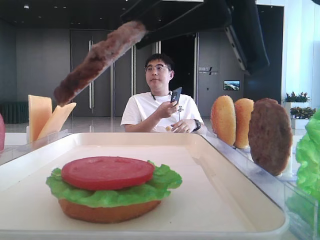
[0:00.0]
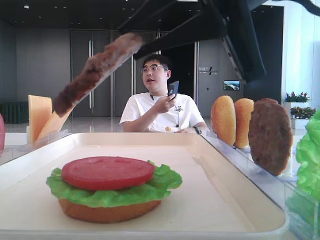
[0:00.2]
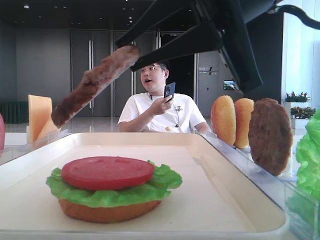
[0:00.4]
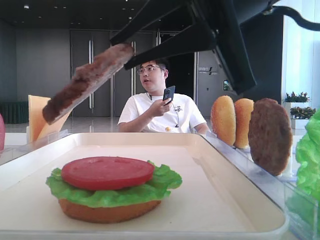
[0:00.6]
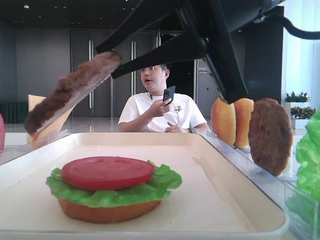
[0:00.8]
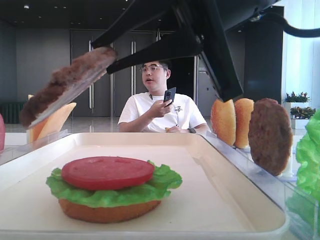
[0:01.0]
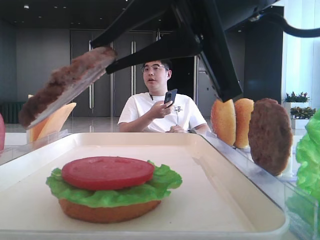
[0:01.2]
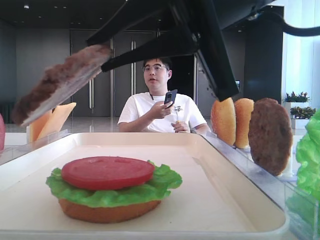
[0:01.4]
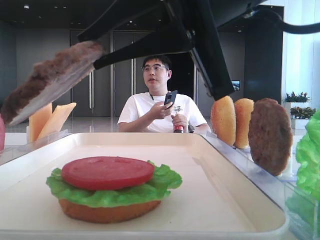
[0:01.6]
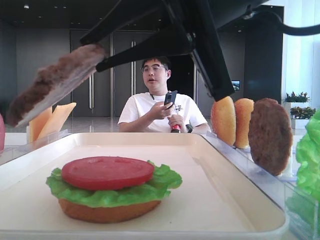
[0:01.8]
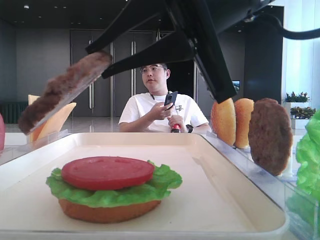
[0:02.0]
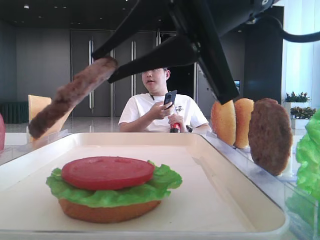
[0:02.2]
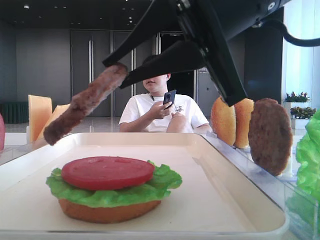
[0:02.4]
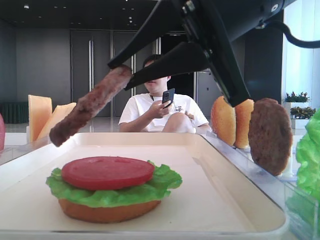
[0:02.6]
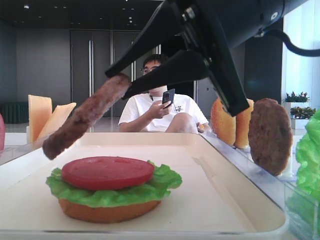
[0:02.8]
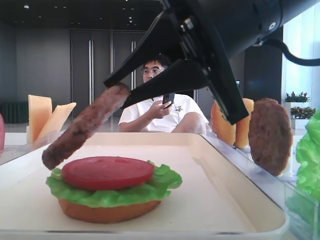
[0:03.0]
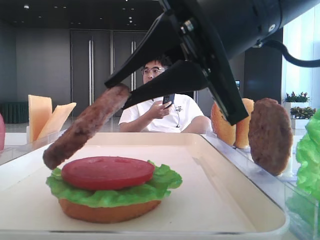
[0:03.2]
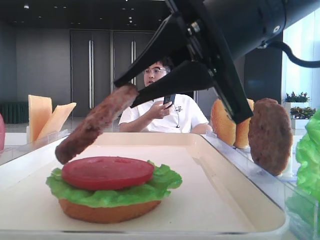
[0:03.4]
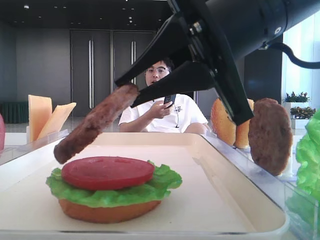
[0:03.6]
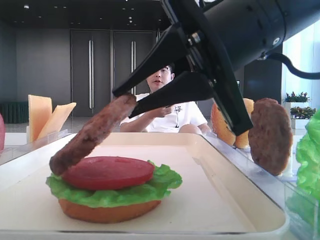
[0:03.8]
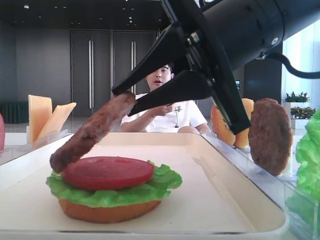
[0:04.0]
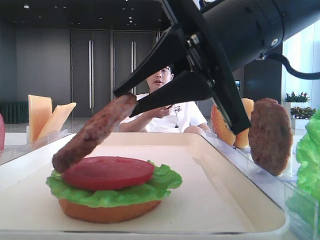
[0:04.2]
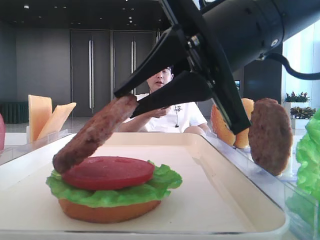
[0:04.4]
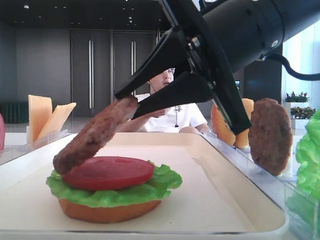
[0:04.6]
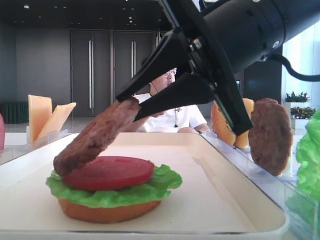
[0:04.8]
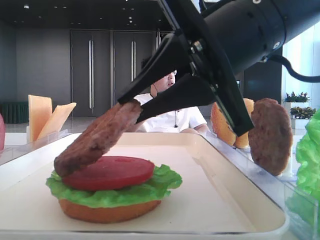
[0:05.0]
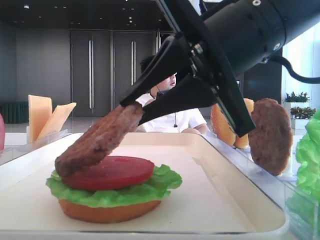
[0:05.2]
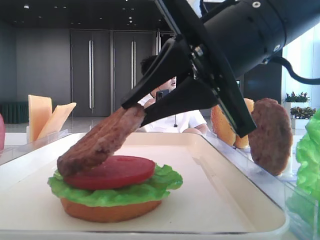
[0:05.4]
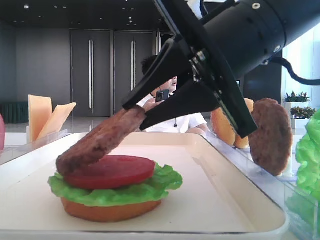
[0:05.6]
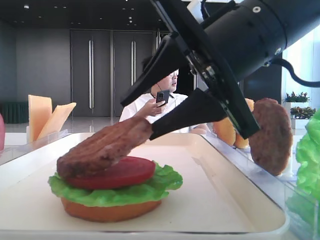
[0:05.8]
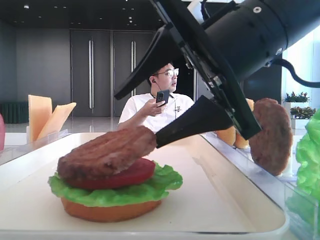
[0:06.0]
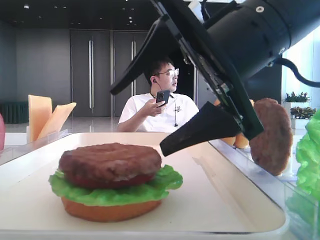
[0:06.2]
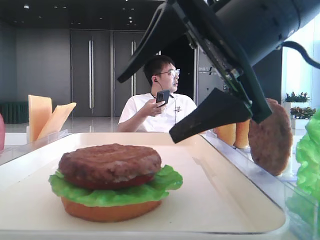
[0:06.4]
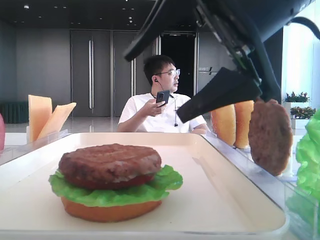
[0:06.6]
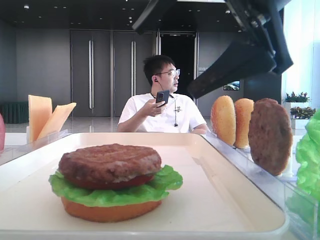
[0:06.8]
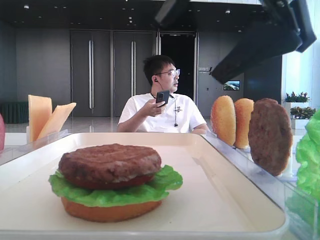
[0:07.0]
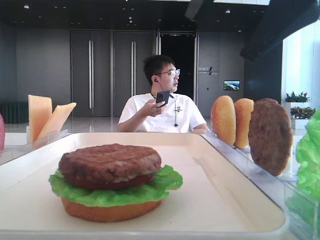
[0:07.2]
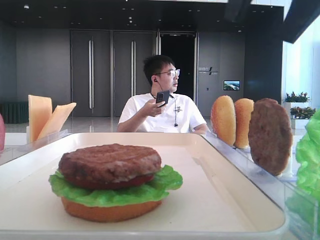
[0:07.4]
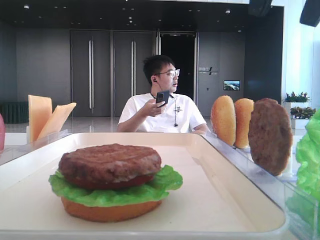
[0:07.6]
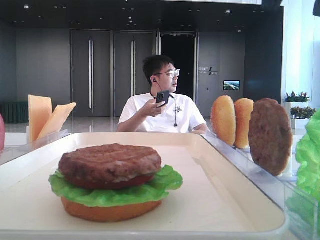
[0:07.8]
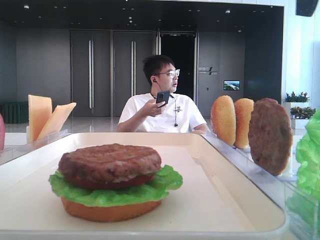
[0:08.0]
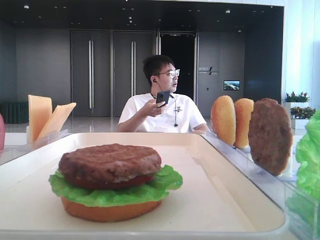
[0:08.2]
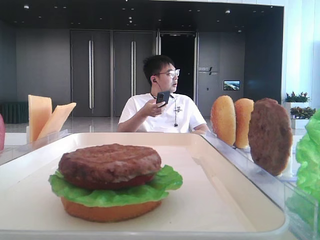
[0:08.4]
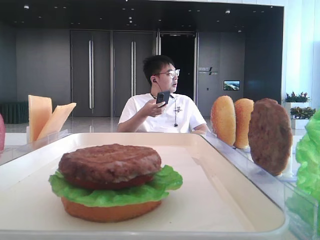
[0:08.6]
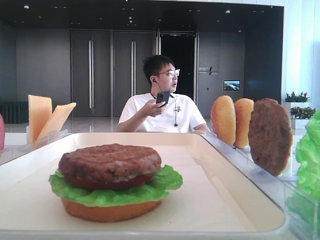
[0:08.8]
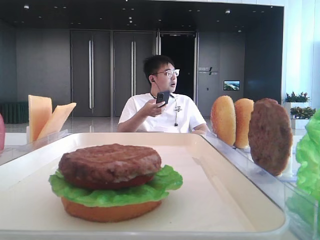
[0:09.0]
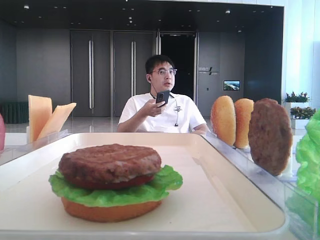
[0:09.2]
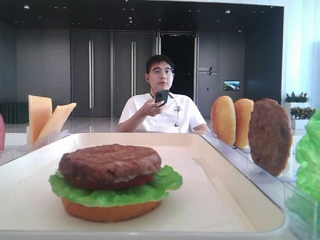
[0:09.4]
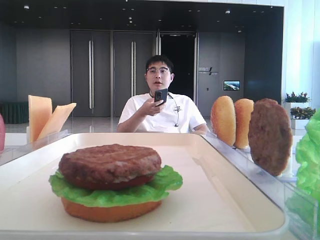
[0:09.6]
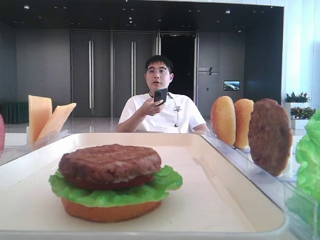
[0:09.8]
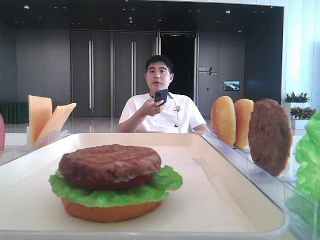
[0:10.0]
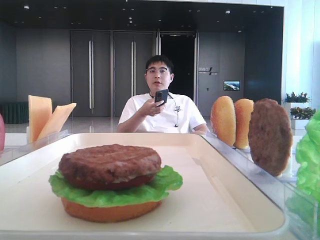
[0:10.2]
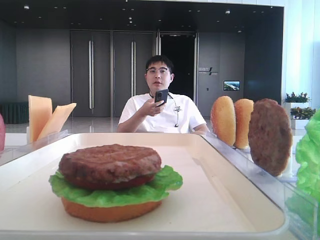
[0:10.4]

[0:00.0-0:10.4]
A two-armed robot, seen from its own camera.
Step, 0:00.0 to 0:06.0: Place the patty on the tomato slice with the right hand.
0:00.0 to 0:04.4: The grippers make only small movements.
0:04.4 to 0:06.0: The right gripper opens its fingers.
0:06.0 to 0:07.4: The right gripper shifts approximately 15 cm upward and to the right.
0:07.4 to 0:09.0: The right gripper moves to the right and upward, approximately 20 cm.
0:09.0 to 0:10.4: The right gripper travels backward by about 25 cm.

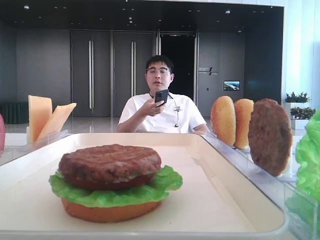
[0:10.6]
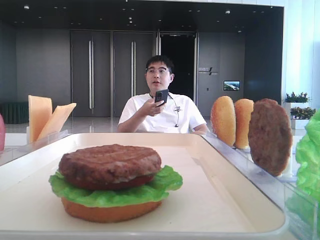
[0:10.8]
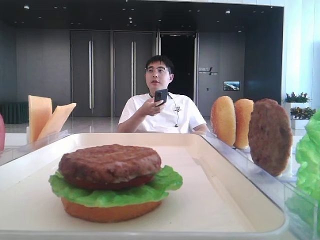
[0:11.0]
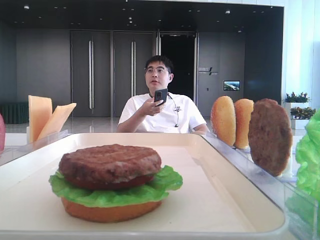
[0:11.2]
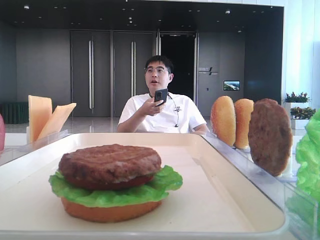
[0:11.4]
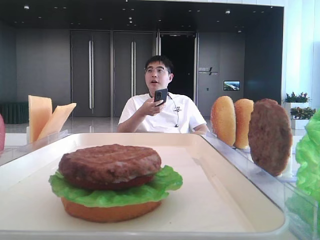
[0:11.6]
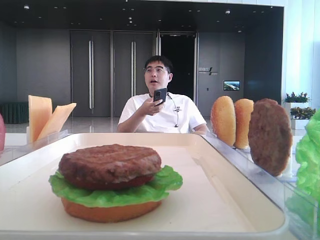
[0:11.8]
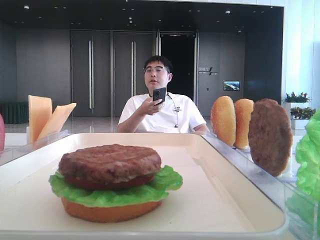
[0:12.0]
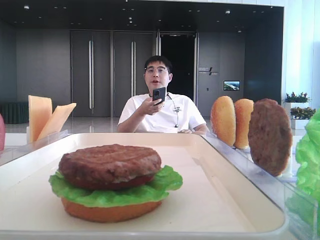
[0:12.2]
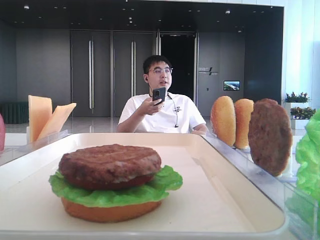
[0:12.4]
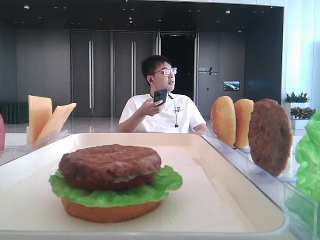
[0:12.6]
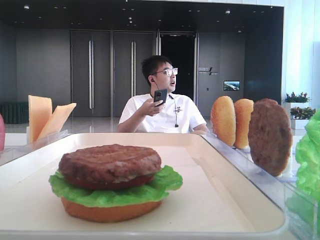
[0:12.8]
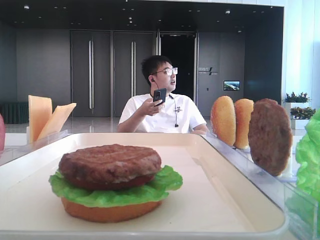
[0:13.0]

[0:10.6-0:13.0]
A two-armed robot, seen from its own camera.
0:10.6 to 0:11.8: The grippers stay close to where they were, moving slightly.
0:11.8 to 0:13.0: The two grippers keep their place.
